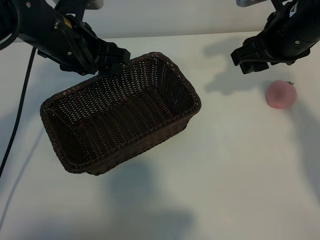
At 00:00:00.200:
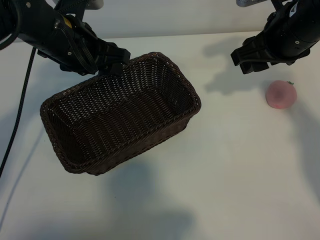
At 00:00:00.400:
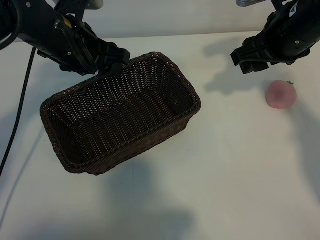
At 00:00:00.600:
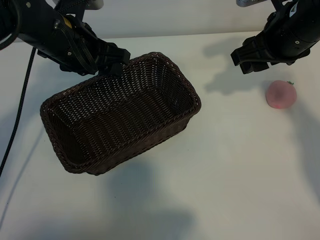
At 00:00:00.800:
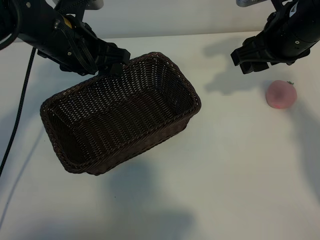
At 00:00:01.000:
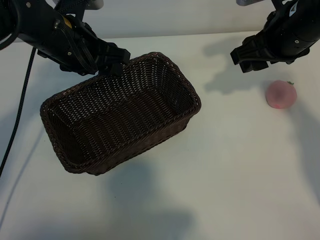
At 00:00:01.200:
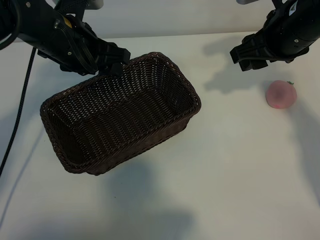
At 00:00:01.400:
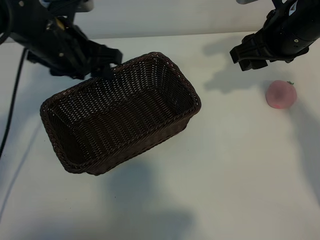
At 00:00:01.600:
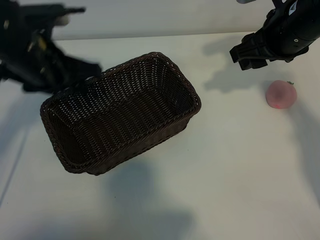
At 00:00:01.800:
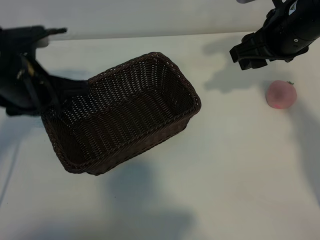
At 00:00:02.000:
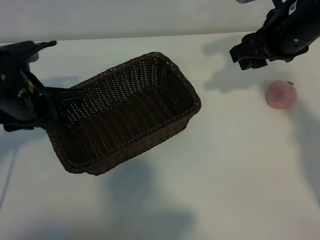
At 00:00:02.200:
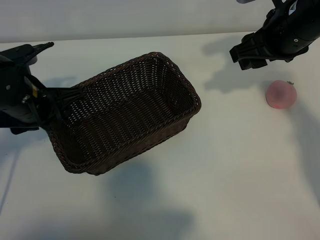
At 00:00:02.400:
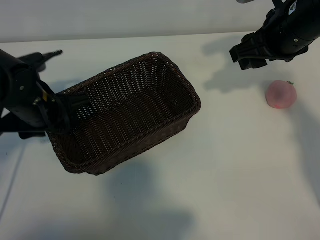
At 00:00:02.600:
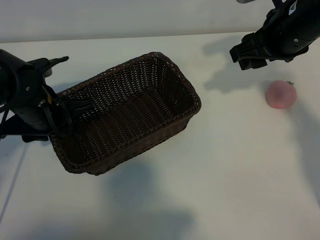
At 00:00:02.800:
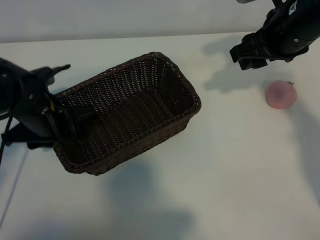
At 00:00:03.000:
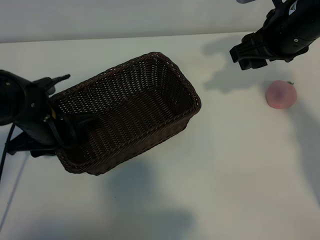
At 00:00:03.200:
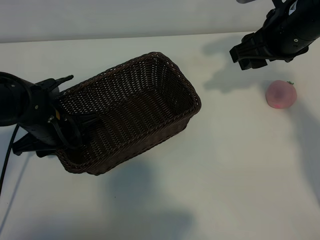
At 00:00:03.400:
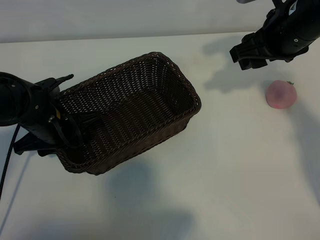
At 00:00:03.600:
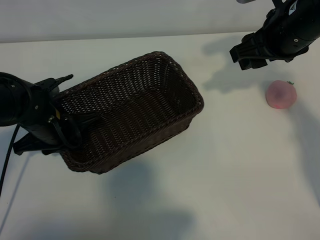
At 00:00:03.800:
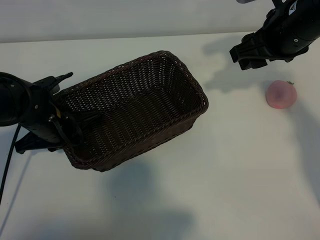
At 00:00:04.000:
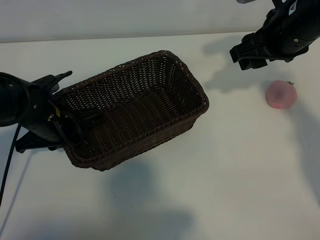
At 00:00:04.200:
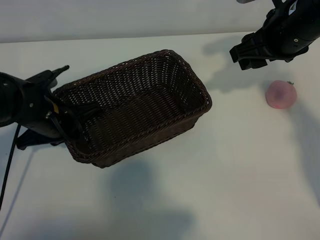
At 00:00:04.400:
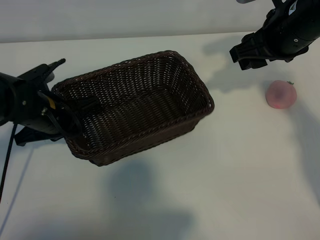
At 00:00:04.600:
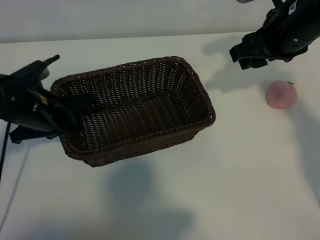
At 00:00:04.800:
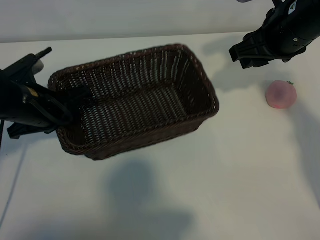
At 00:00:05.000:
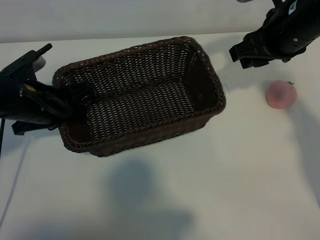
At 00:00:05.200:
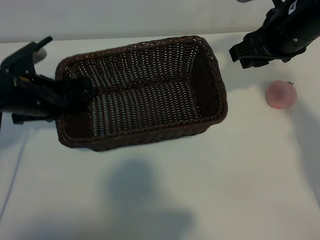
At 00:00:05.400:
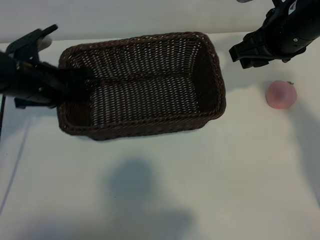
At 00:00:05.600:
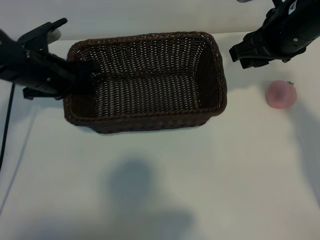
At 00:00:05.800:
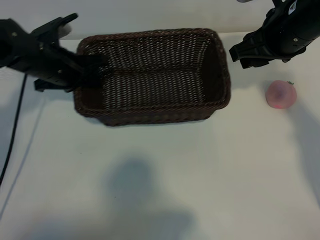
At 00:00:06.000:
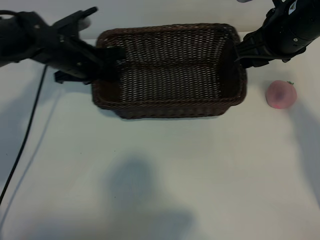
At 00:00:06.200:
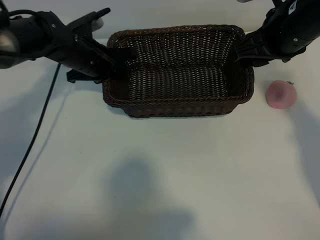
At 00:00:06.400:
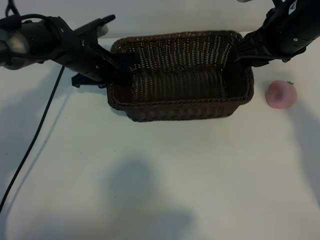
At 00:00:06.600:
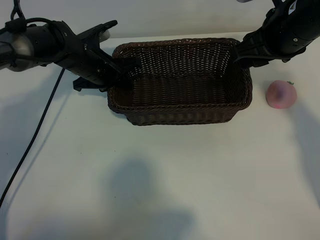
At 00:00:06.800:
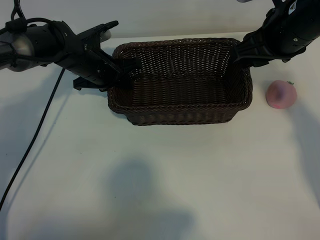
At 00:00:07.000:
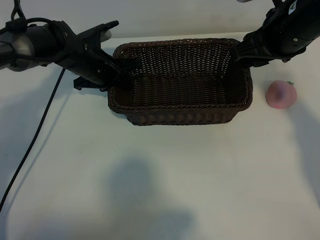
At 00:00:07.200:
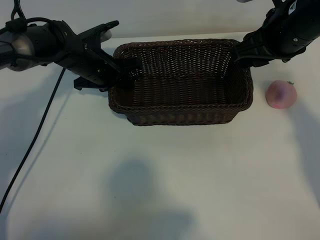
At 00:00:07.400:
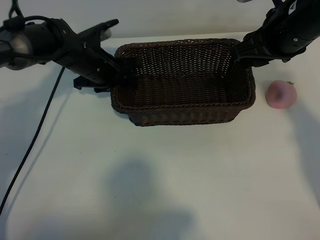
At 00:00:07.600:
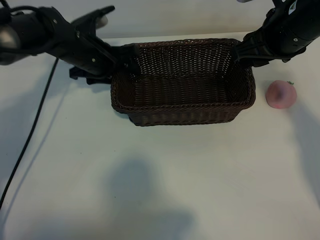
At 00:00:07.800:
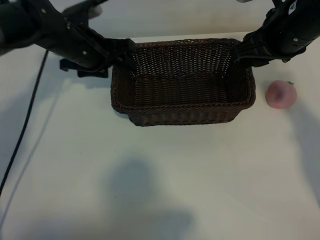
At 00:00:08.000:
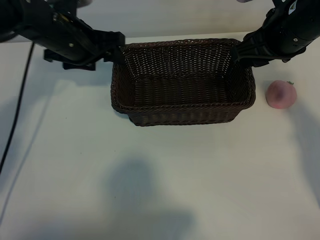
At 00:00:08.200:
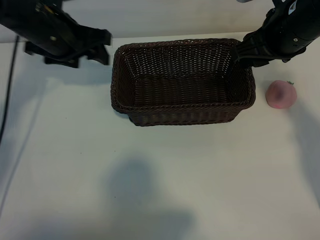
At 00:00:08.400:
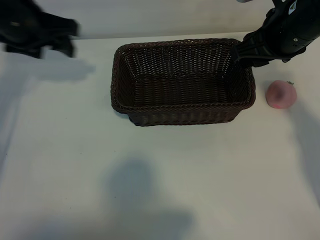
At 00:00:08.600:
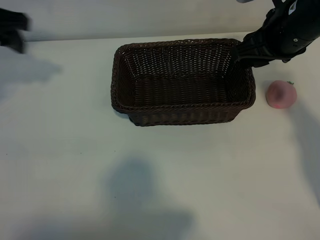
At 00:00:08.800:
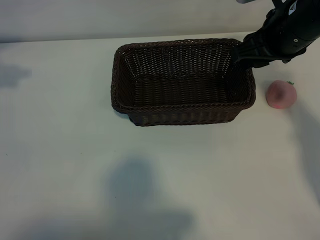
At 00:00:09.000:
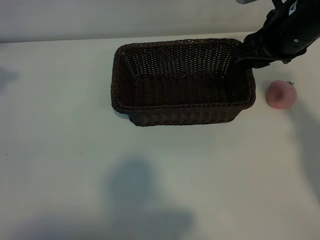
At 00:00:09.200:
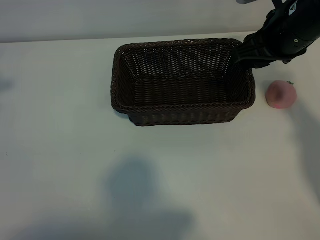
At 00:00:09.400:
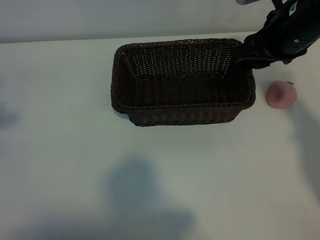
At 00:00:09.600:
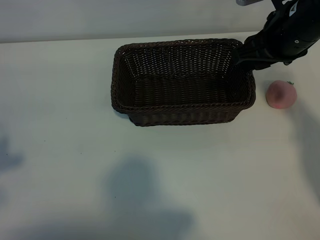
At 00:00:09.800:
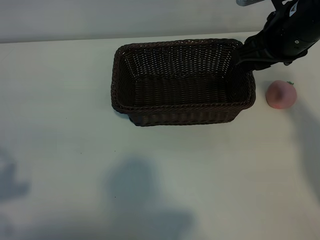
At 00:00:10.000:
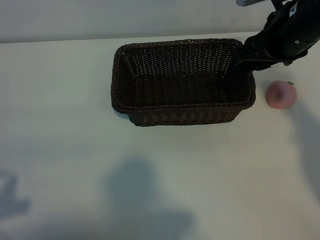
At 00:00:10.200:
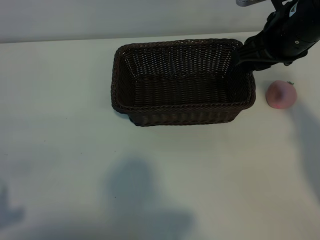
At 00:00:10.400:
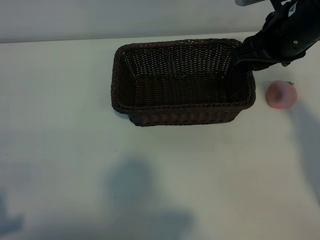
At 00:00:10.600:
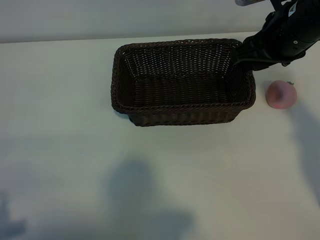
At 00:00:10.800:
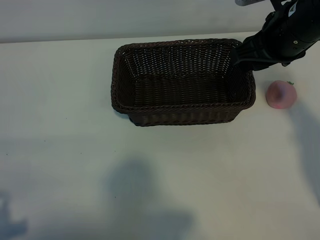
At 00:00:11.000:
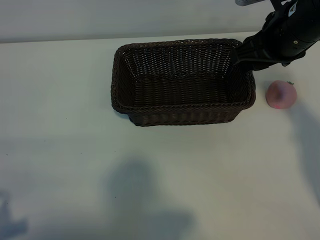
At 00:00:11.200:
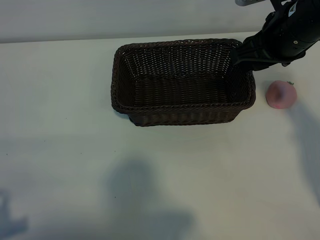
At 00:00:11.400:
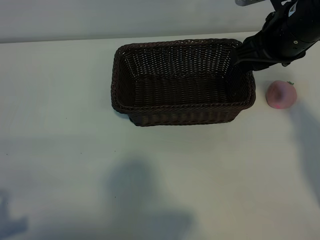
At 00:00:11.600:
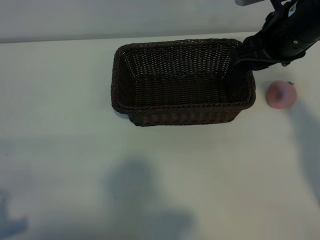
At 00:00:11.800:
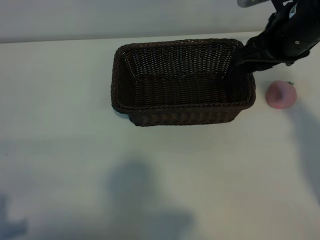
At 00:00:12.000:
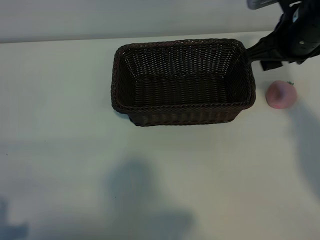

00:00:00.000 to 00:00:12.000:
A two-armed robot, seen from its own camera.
Task of the whole recording: pick up the peach and put it into the basket.
Step, 00:00:01.400 to 00:00:03.600: Grasp the basket with left gripper.
Step, 00:00:03.800 to 00:00:07.600: Place the basket in the center of view with left gripper.

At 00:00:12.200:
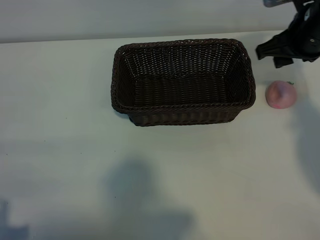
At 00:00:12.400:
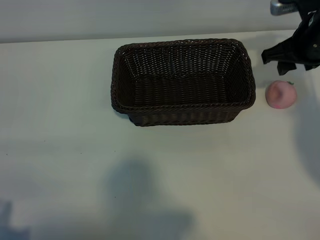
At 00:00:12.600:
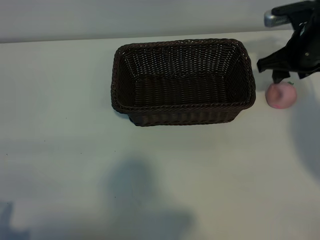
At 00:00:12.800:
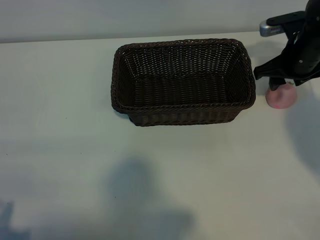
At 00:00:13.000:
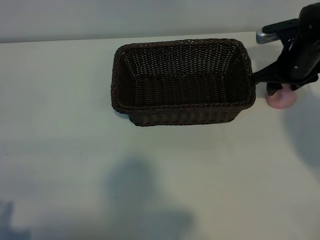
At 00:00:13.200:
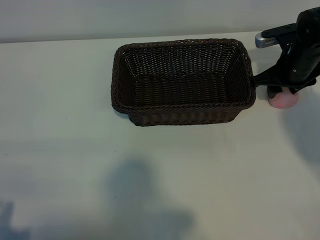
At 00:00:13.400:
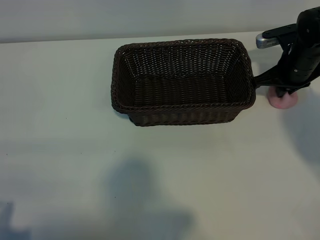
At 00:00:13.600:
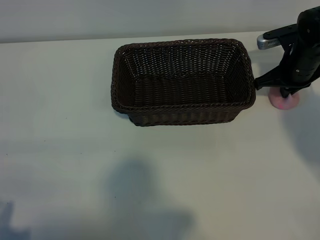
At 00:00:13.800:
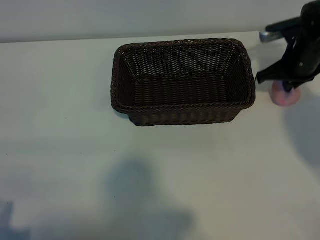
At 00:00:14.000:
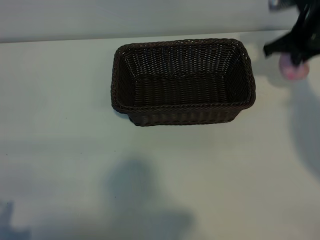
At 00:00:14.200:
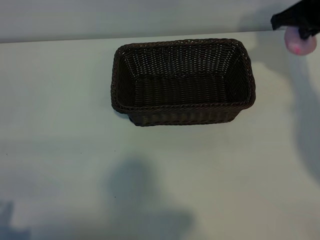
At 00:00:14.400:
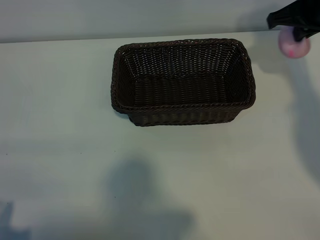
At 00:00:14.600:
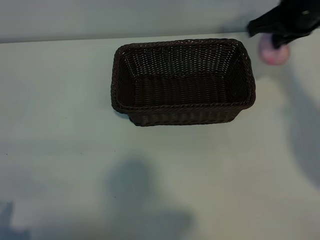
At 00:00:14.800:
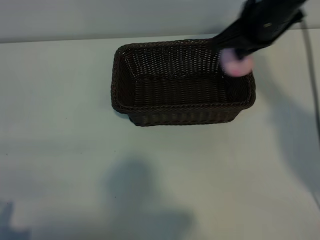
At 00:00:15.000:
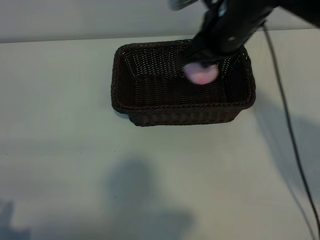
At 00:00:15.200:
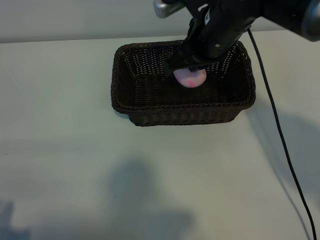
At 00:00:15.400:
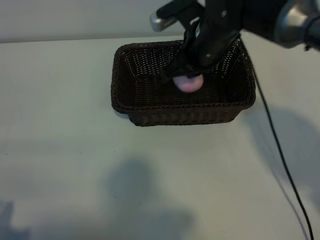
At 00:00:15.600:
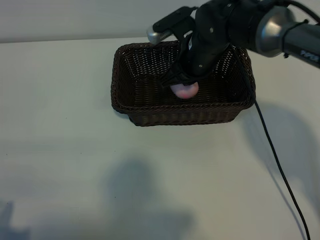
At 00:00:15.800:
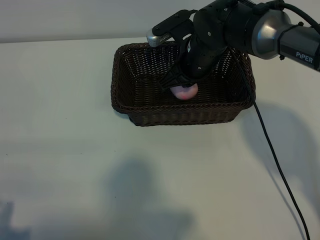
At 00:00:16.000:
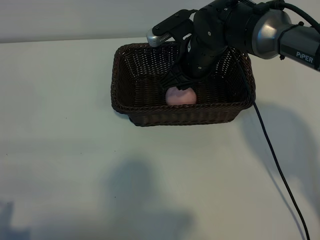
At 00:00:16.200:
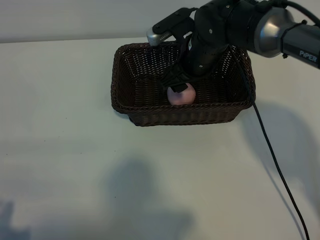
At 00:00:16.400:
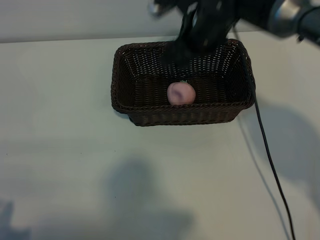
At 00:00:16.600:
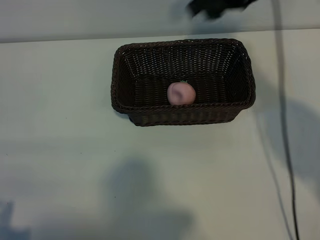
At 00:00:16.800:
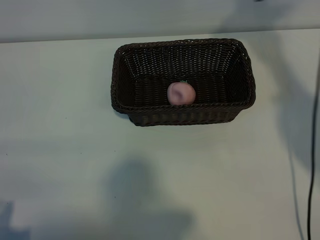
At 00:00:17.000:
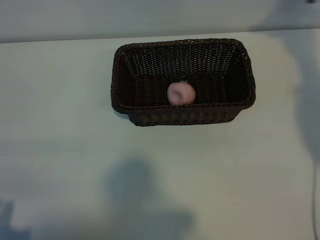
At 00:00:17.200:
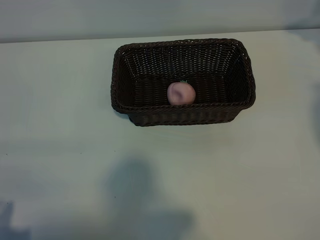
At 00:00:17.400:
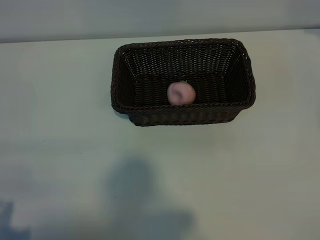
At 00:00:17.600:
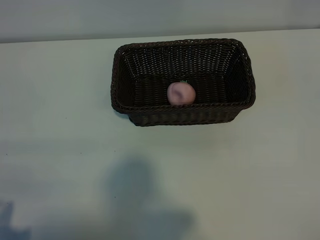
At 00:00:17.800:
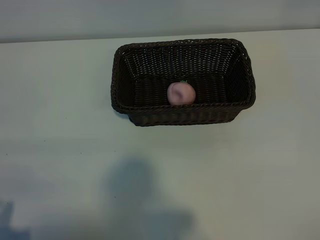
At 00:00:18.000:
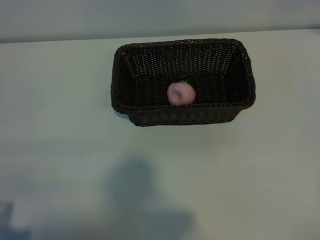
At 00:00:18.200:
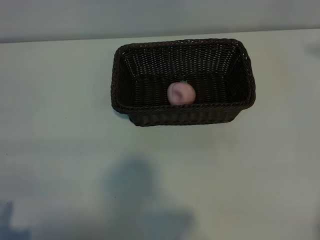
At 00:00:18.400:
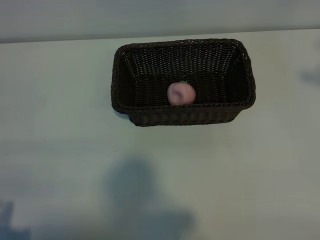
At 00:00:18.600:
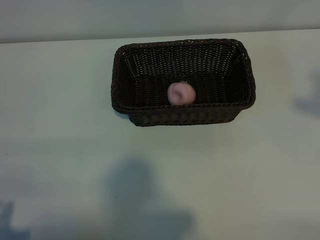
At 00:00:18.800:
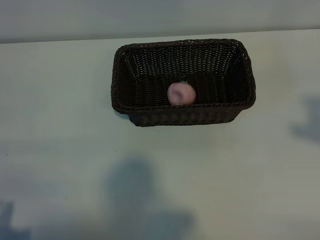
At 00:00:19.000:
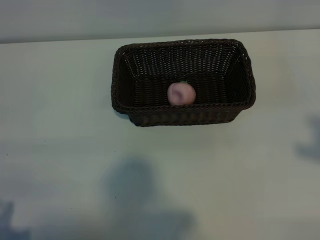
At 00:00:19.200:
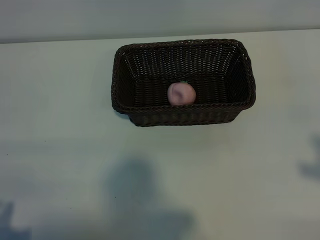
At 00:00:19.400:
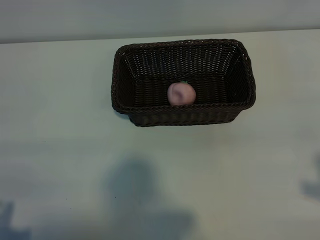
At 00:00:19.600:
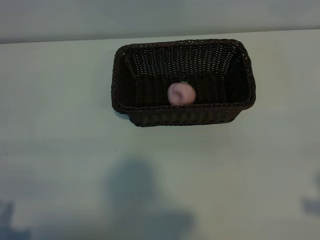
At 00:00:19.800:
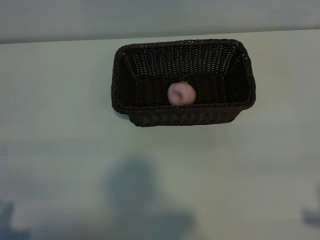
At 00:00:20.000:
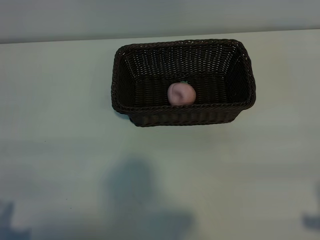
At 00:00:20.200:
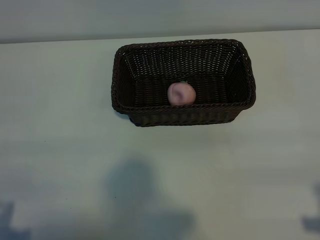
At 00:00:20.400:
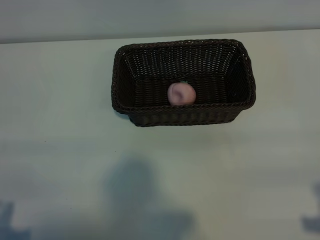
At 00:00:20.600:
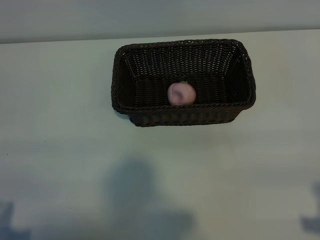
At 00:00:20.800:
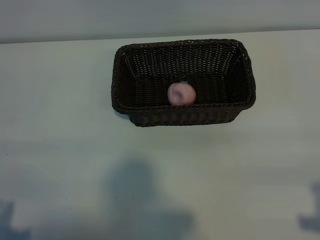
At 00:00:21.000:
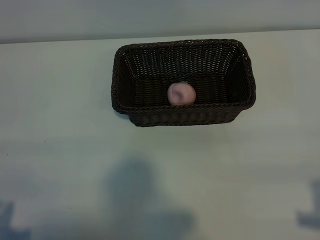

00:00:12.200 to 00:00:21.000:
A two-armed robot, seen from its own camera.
Task of the whole recording: pick up the peach and put it into the basket.
Step, 00:00:13.800 to 00:00:16.200: Place the peach in the basket with right gripper.
